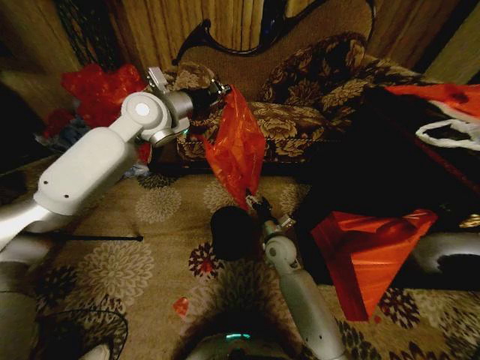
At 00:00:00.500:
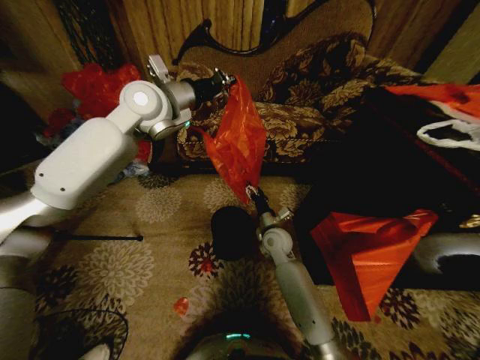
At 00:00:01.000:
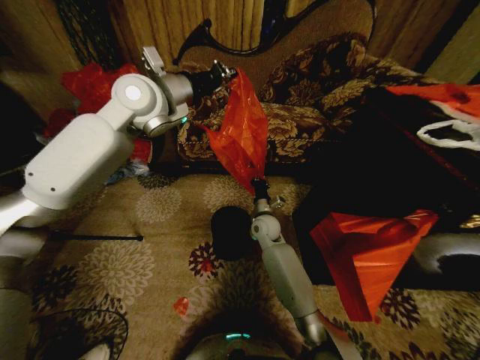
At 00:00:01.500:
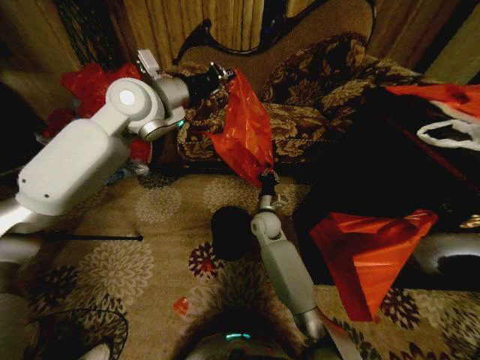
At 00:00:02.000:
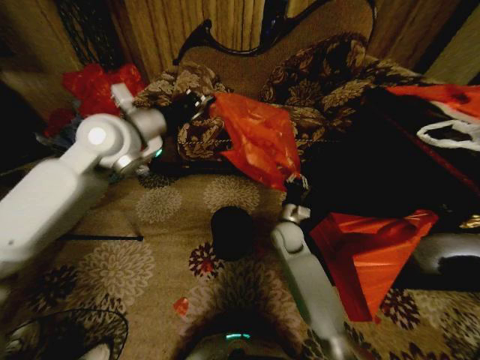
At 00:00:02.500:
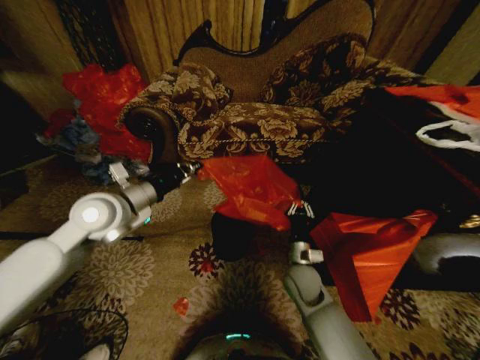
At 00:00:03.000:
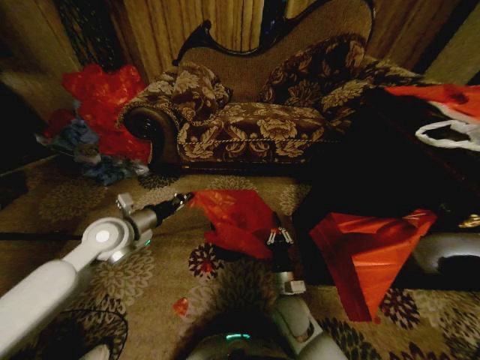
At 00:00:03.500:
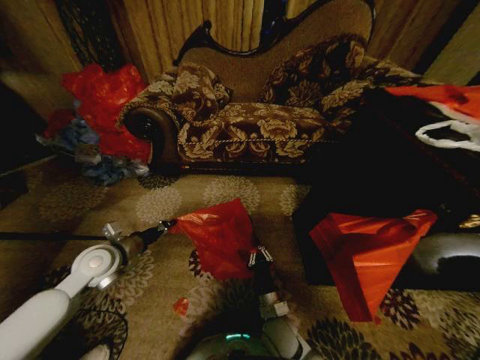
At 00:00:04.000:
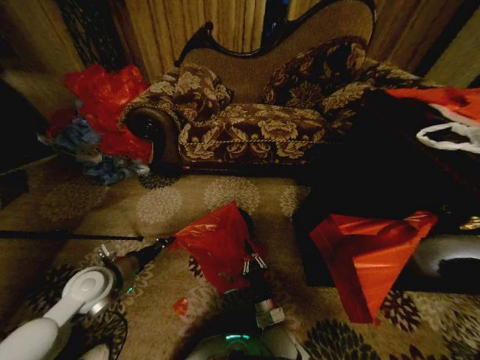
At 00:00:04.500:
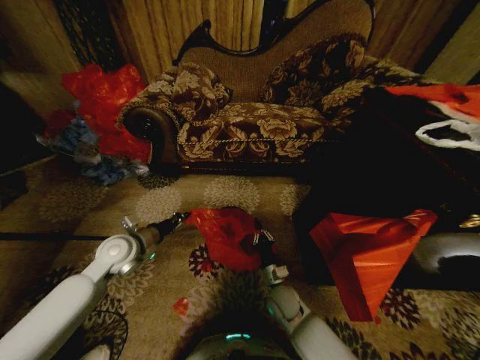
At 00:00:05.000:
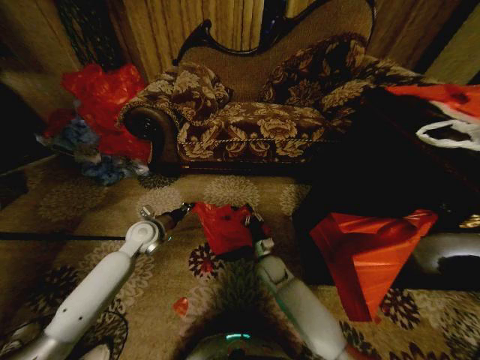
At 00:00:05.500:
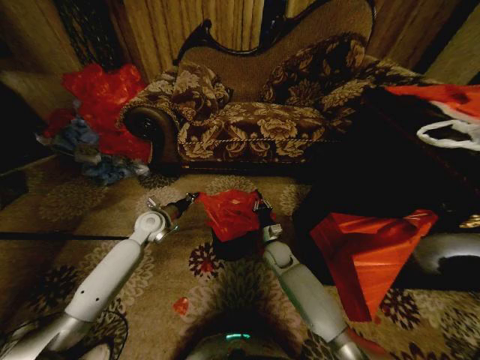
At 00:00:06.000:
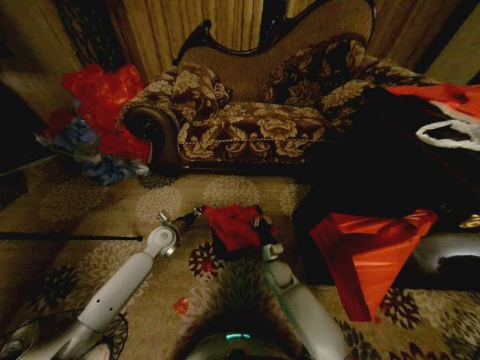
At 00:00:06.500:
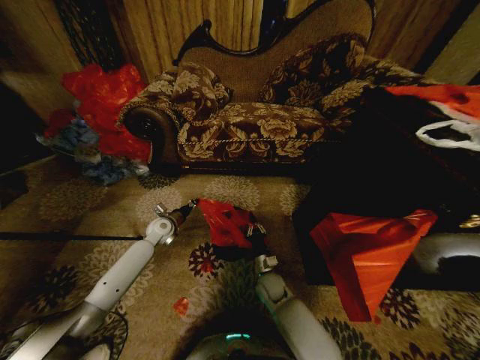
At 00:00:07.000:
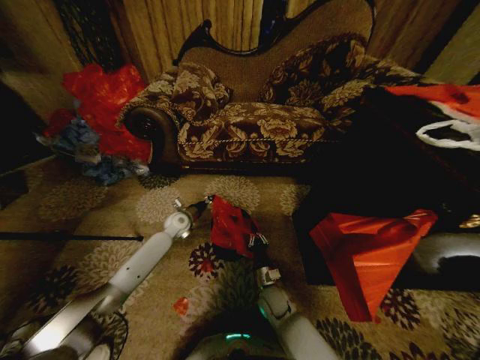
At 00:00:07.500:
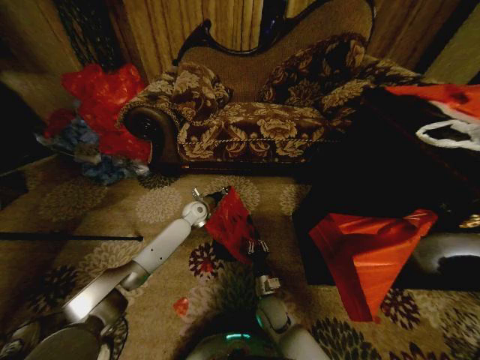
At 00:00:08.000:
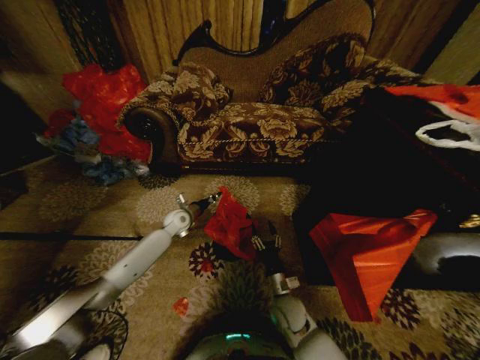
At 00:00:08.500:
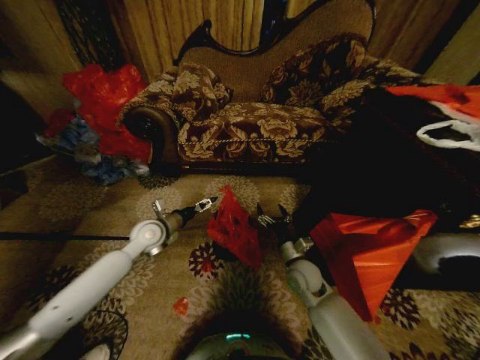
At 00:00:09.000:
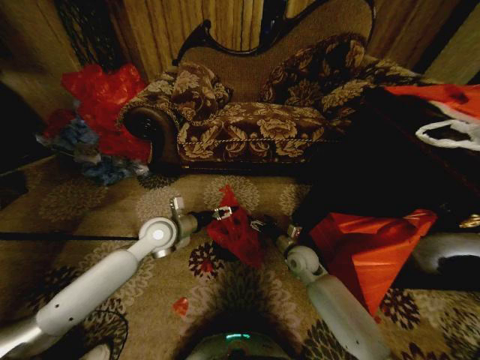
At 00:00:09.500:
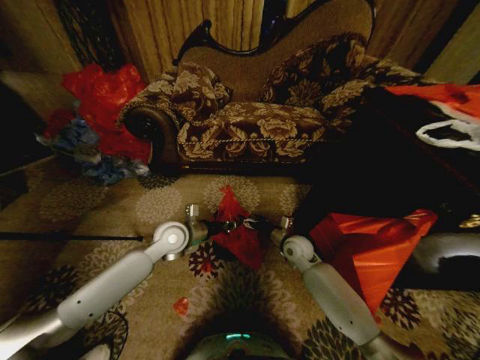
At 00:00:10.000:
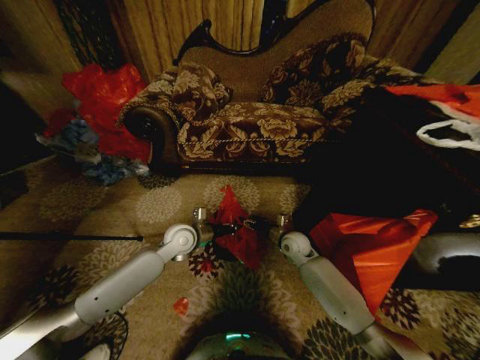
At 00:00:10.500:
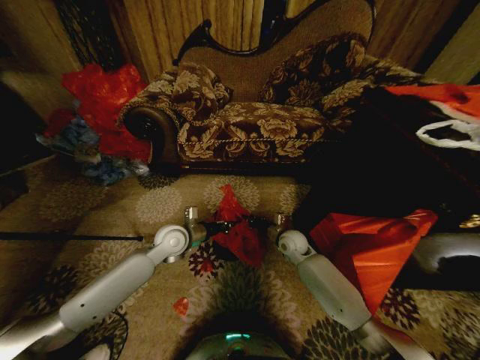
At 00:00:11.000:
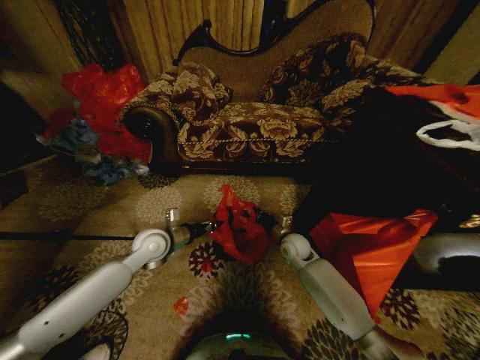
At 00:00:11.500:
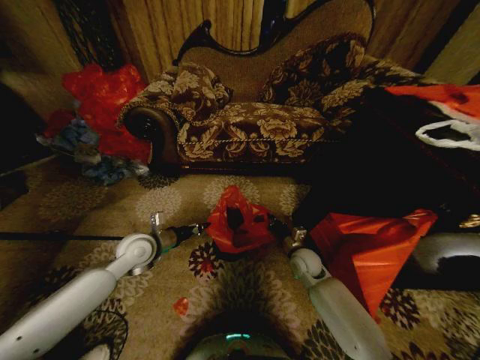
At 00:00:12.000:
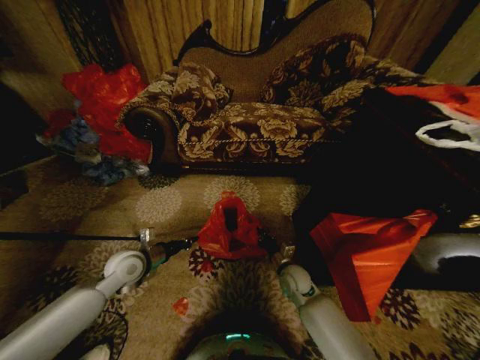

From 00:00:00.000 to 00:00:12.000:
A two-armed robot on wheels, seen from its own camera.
Task of the whole recording: Place a garbage bag over the trash bin.
From 00:00:00.000 to 00:00:02.000: The right gripper closes its fingers. The left gripper moves backward, approximately 10 cm.
From 00:00:02.000 to 00:00:04.000: The right gripper travels backward and downward by some 30 cm, while the left gripper moves downward and backward, roughly 30 cm.
From 00:00:04.000 to 00:00:06.000: The right gripper goes some 20 cm forward; the left gripper heads forward, to the right and downward, covering some 20 cm.
From 00:00:06.000 to 00:00:08.000: The left gripper travels forward by some 5 cm. Meanwhile the right gripper goes some 10 cm backward, and opens up.
From 00:00:08.000 to 00:00:10.000: The left gripper moves backward, to the right and upward, approximately 15 cm, and opens, then closes again; the right gripper is displaced forward and upward by roughly 20 cm.
From 00:00:10.000 to 00:00:12.000: The right gripper is displaced backward and downward by some 10 cm, and closes up, while the left gripper goes roughly 15 cm to the left and backward.

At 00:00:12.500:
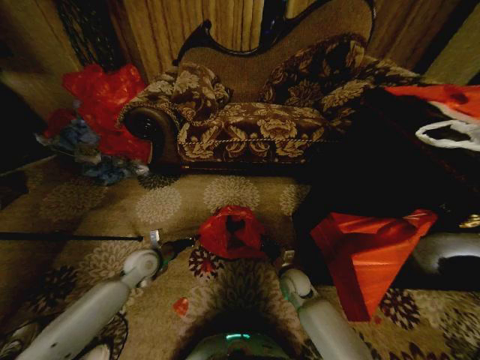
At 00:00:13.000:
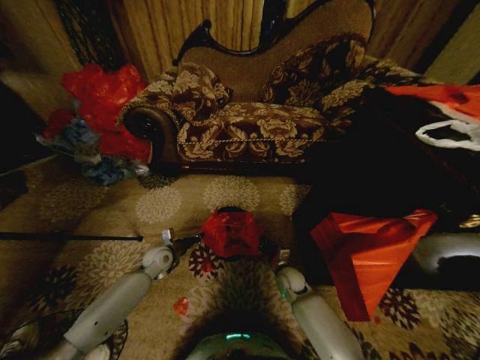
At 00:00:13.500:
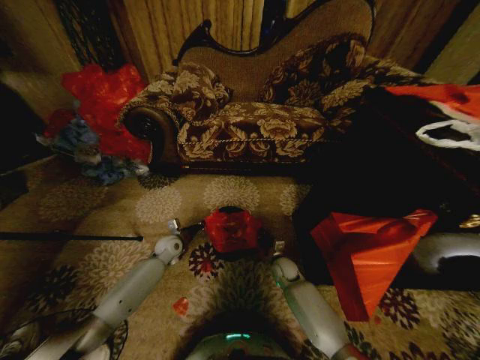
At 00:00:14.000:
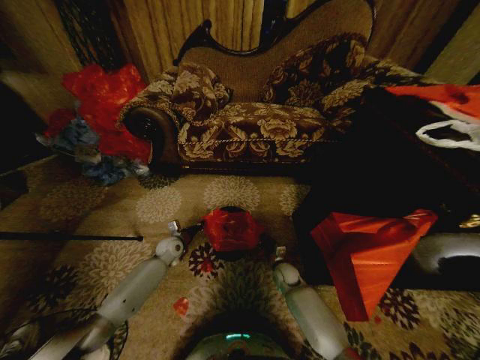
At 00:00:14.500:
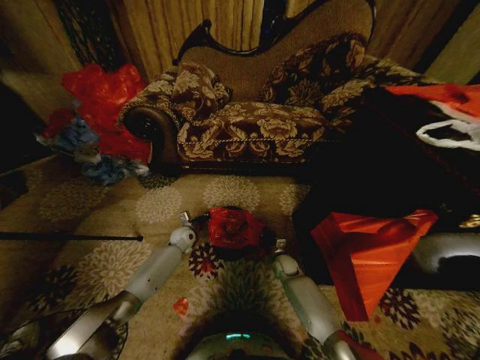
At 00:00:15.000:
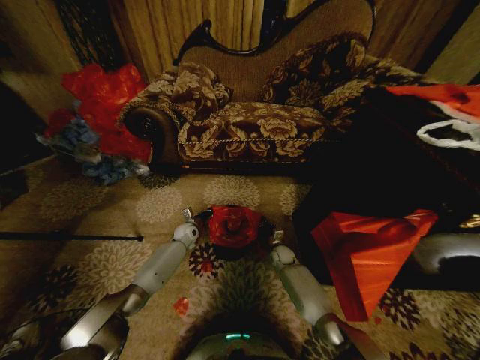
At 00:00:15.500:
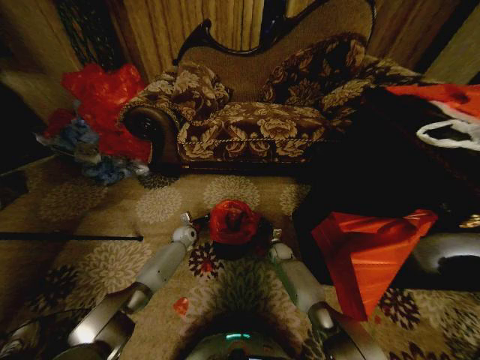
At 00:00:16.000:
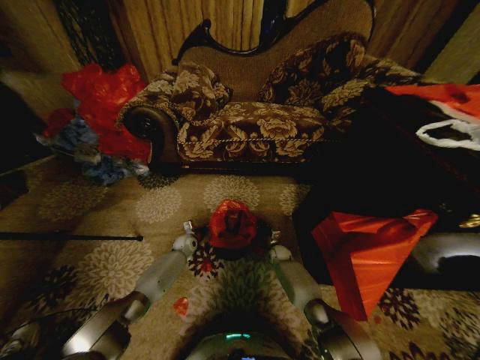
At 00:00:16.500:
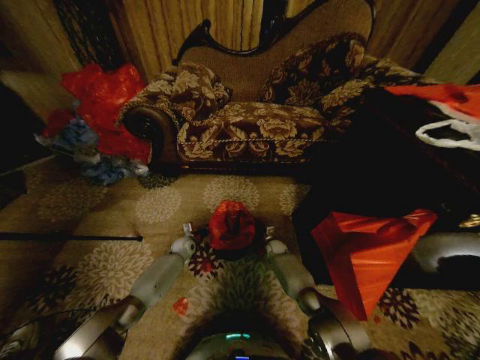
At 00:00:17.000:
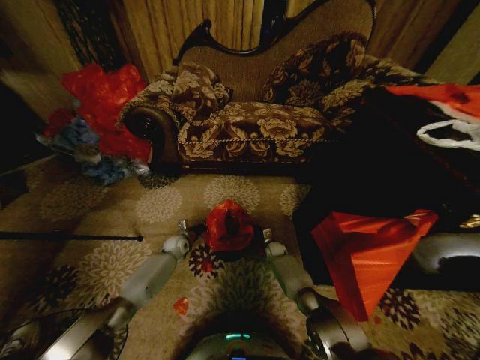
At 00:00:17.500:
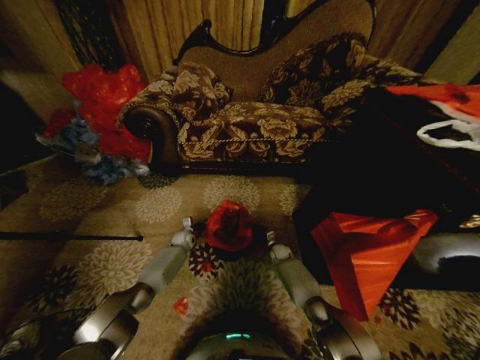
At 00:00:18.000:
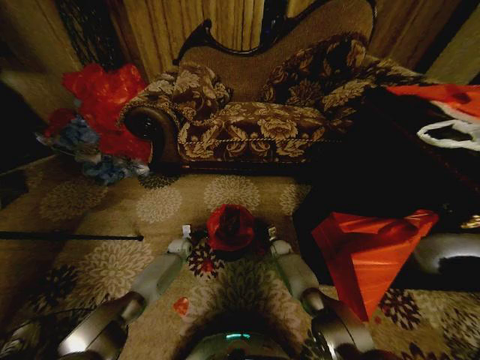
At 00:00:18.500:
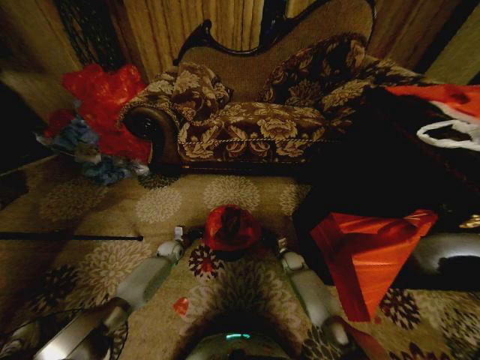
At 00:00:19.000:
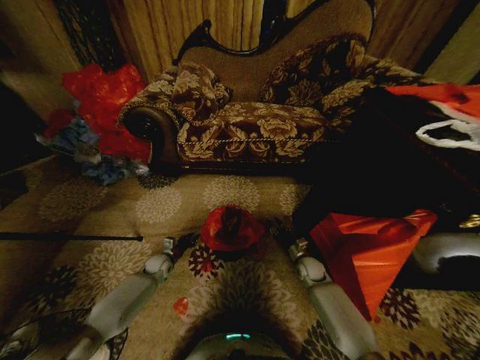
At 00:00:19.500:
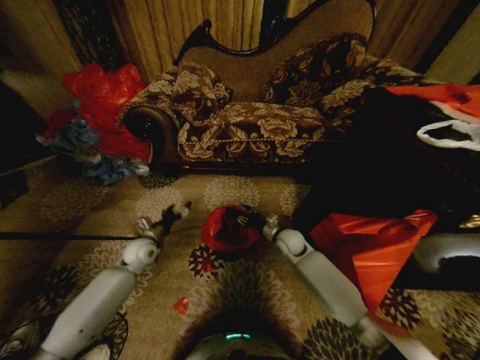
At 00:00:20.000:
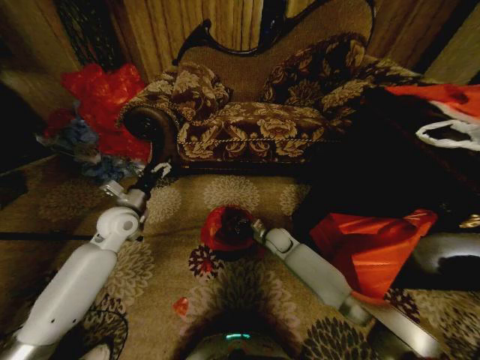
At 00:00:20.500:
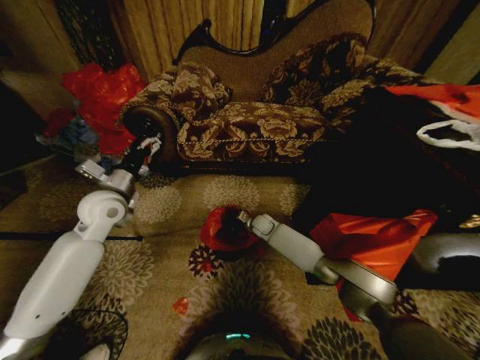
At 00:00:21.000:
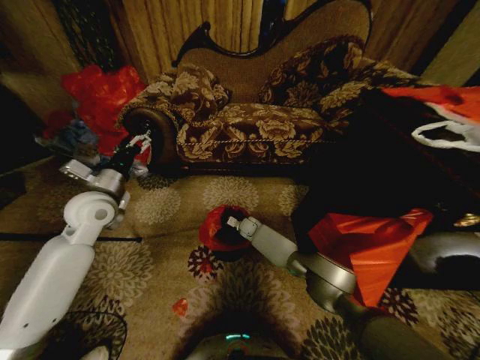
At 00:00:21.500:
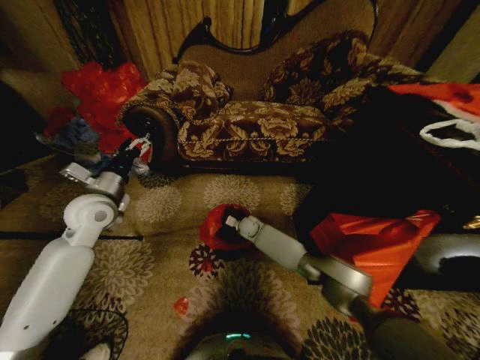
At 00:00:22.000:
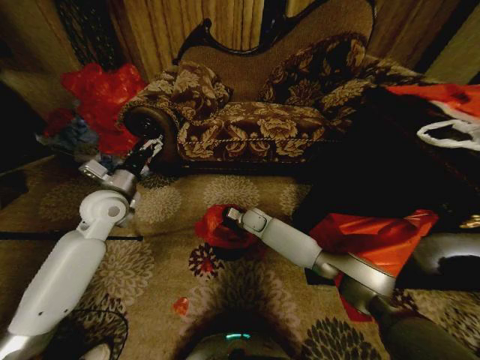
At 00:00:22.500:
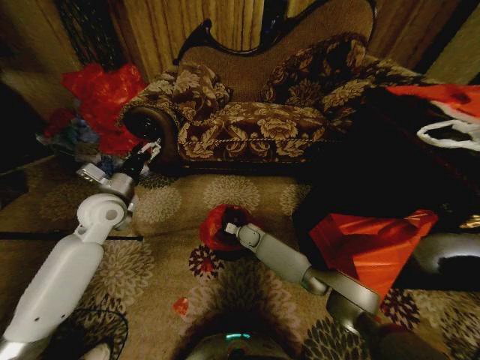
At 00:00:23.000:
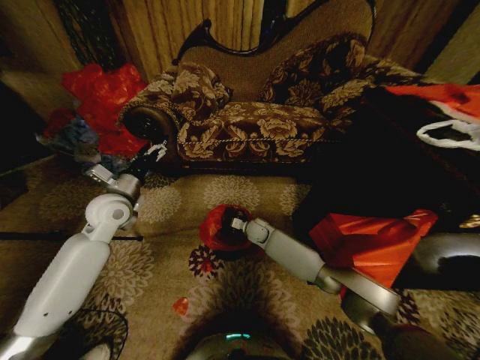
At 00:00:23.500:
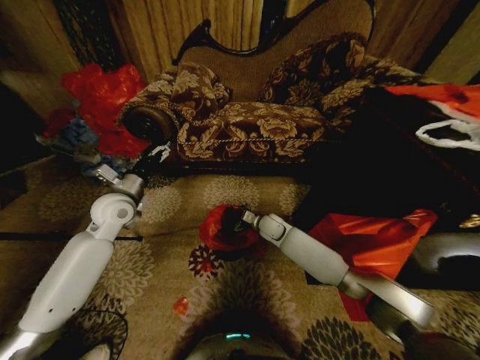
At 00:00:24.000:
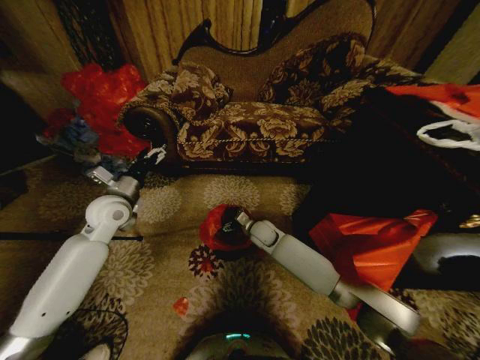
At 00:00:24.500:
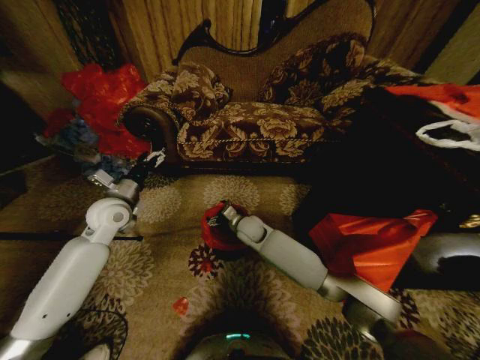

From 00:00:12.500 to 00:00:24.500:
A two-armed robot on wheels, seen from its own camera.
Task of the whole recording: Place a garbage bag over the trash bin.
From 00:00:12.500 to 00:00:14.500: The right gripper is displaced forward and downward by roughly 10 cm; the left gripper heads forward, downward and to the right, covering approximately 20 cm.
From 00:00:14.500 to 00:00:16.500: The right gripper shifts approximately 10 cm forward. Meanwhile the left gripper heads downward, covering some 5 cm.
From 00:00:16.500 to 00:00:18.500: The left gripper moves to the left, approximately 5 cm, while the right gripper goes approximately 5 cm to the right.
From 00:00:18.500 to 00:00:20.500: The left gripper travels upward by approximately 35 cm, and opens its fingers; the right gripper goes some 20 cm upward, to the left and forward, and opens and closes again.
From 00:00:20.500 to 00:00:22.500: The right gripper goes up and down, some 10 cm each way, reversing 2 times, and opens.
From 00:00:22.500 to 00:00:24.500: The right gripper moves upward and backward, roughly 10 cm.

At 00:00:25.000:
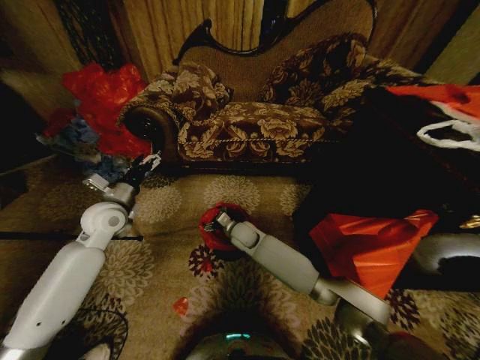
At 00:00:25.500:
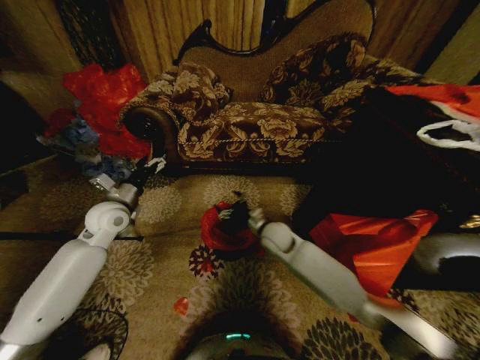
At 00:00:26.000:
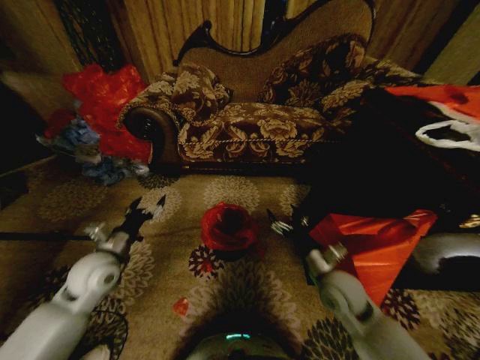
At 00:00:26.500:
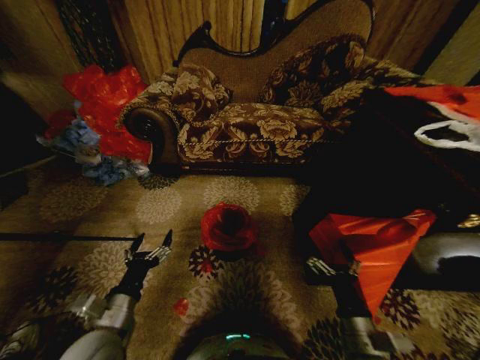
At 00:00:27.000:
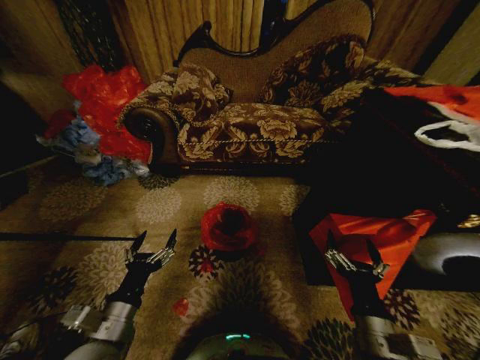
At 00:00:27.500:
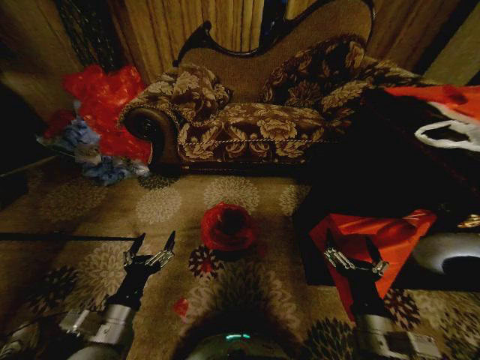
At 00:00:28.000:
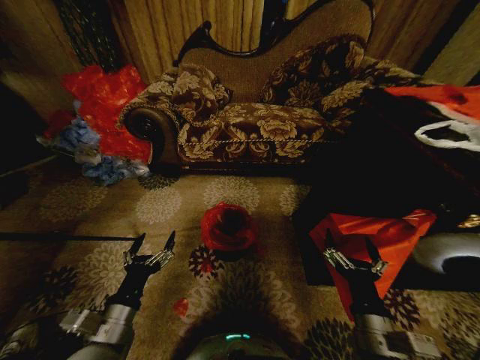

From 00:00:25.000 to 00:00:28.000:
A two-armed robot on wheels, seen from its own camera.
Task of the whole recording: Place a garbage bag over the trash bin.
From 00:00:25.000 to 00:00:26.500: The left gripper moves backward and downward, approximately 25 cm; the right gripper heads backward and to the right, covering roughly 40 cm.
From 00:00:26.500 to 00:00:28.000: There are only small adjustments of the grippers.
